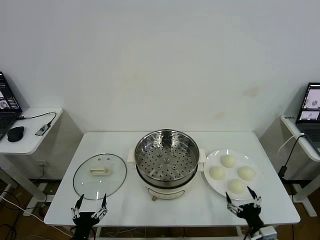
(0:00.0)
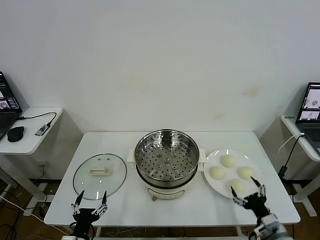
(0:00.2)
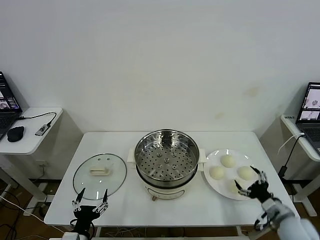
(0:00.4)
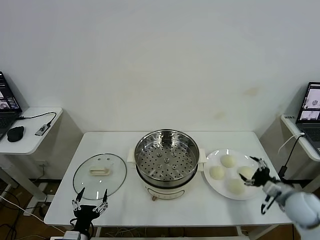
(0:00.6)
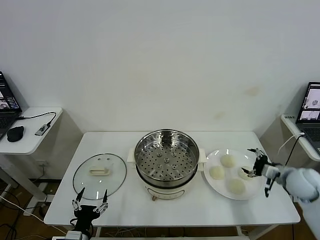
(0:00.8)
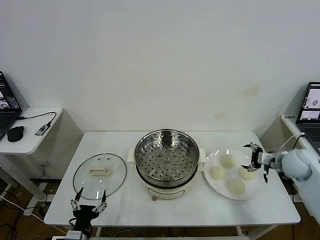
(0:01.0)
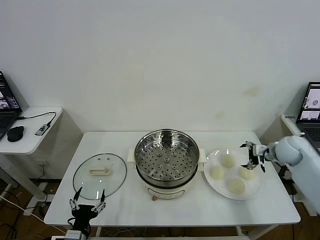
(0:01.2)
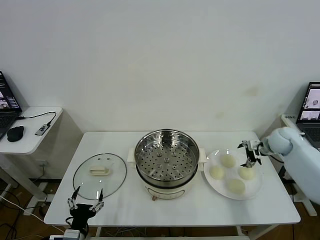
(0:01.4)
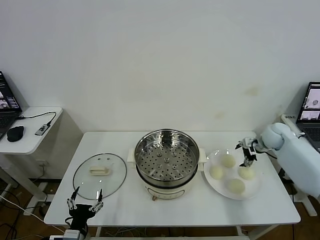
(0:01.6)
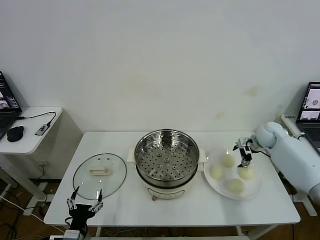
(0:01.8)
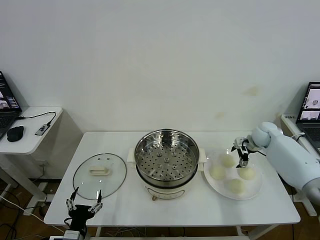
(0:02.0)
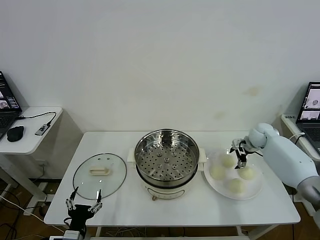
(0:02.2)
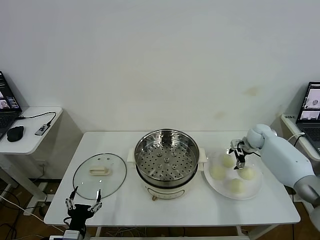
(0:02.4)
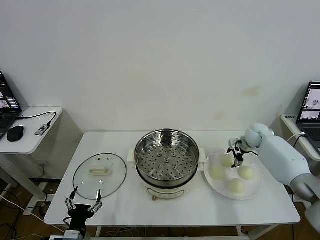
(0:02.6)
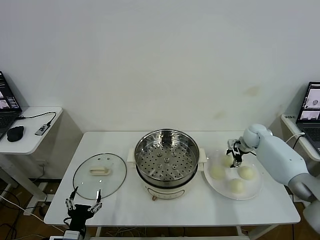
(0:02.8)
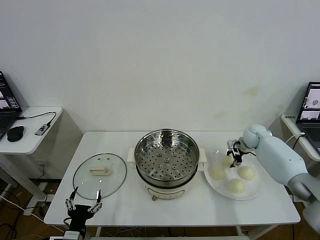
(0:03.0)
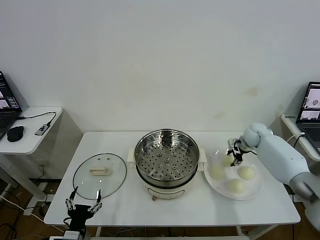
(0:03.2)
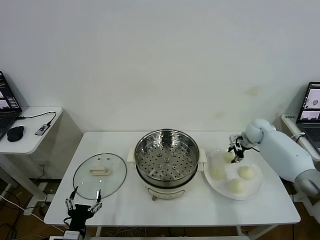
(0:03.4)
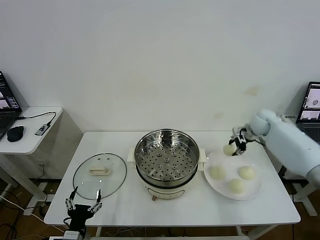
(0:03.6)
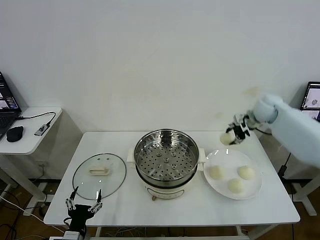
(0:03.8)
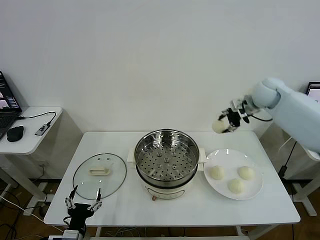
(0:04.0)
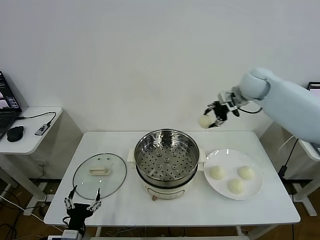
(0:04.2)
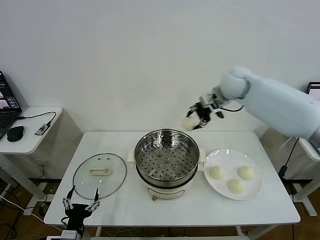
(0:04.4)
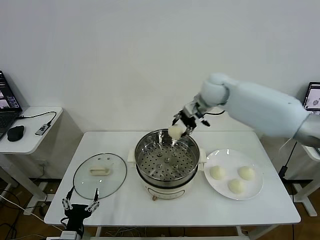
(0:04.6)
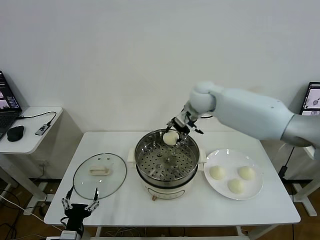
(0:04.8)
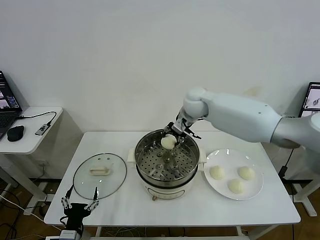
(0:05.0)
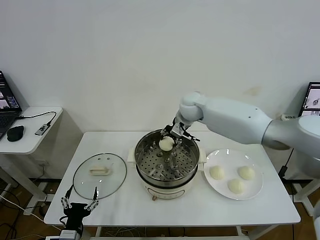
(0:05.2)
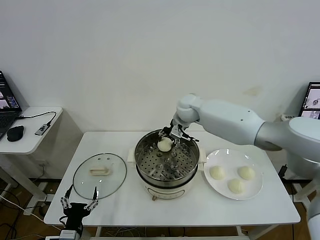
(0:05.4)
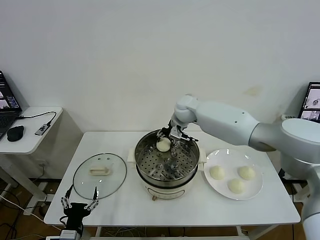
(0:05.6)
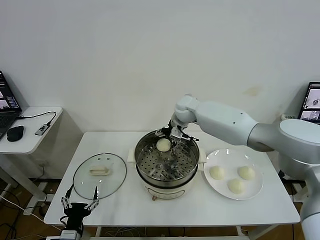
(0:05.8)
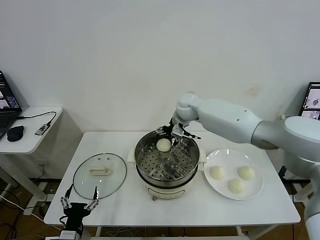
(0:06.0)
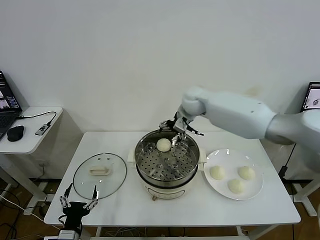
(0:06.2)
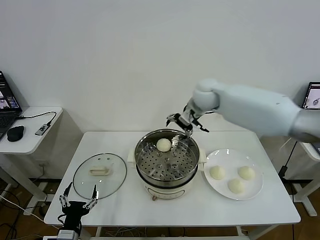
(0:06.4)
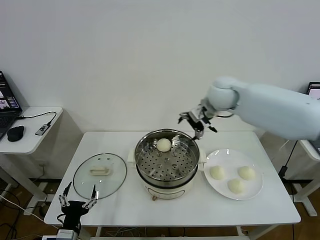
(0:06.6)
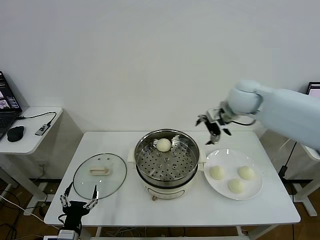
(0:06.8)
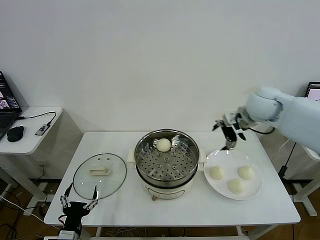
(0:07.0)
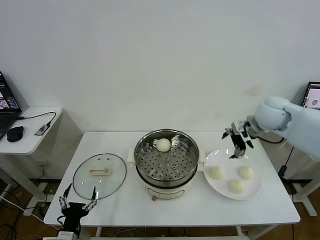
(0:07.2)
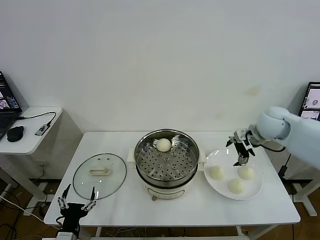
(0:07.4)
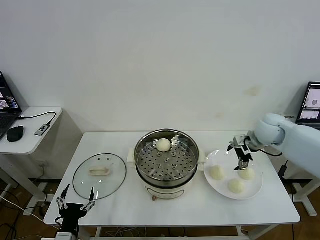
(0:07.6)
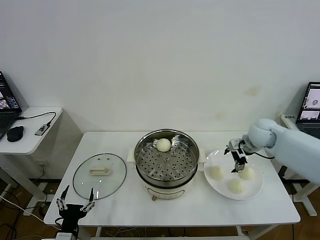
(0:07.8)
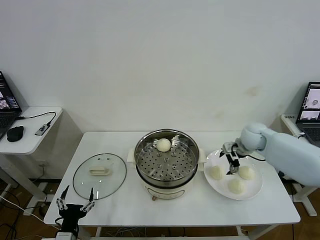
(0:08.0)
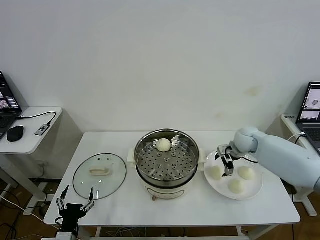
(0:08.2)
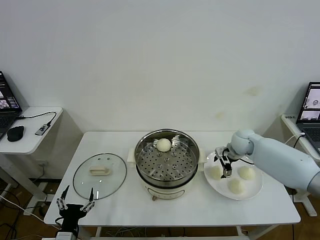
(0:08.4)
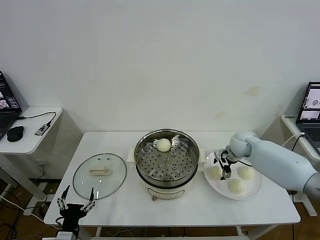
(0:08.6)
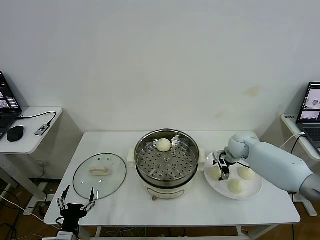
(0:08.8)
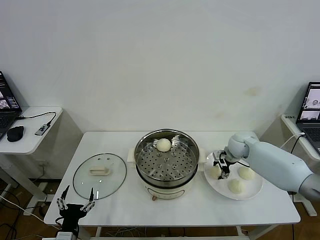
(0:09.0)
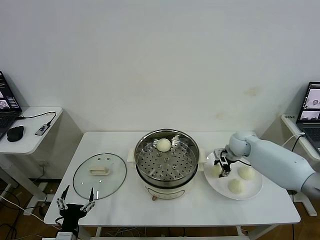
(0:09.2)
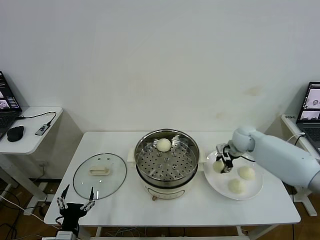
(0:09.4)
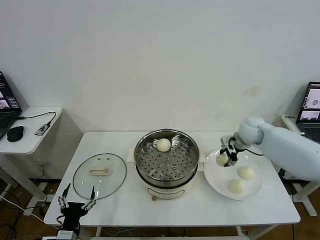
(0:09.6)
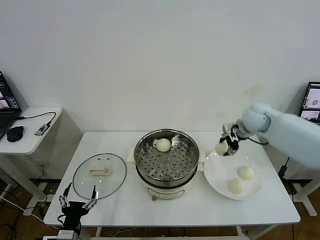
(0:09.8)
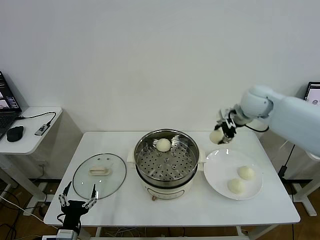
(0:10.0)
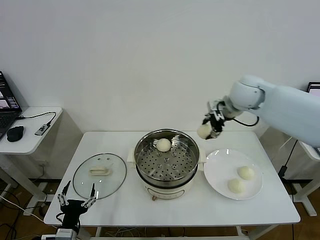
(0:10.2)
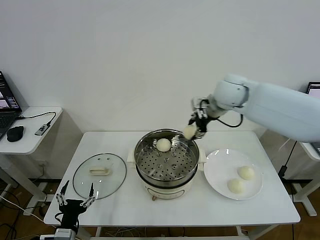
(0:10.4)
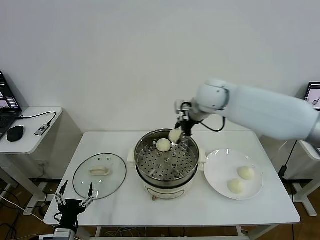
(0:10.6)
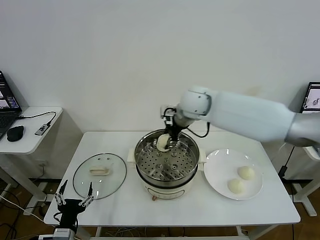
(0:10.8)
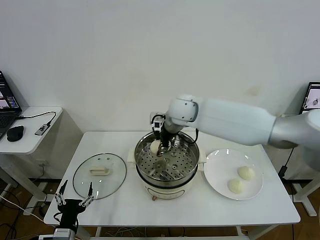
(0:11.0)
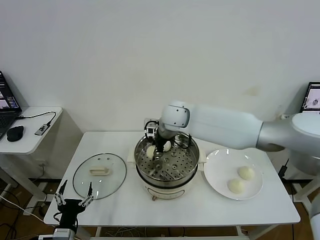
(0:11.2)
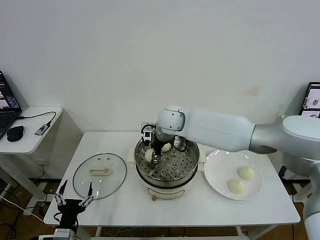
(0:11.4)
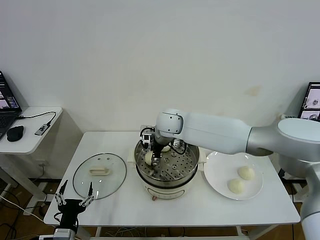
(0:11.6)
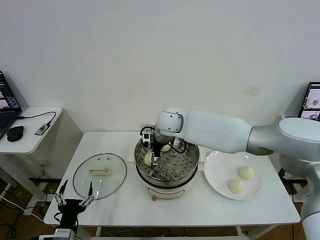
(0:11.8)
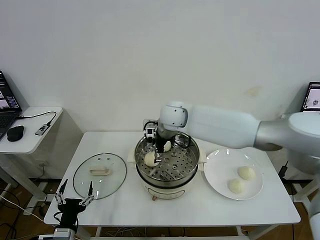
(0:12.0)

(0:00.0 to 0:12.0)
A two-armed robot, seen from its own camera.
Task of the whole recording: take steamed baozi put them in steamer then cover it.
Step, 0:00.0 - 0:03.0: Grasp the baozi in the plate with right gripper.
Step, 0:03.2 - 0:05.8: Place the baozi on the steamer with right gripper.
Step, 0:06.2 - 0:09.0: Grasp the baozi in the plate with right gripper.
Step, 0:09.2 - 0:11.8: Place the baozi on the steamer with right gripper.
0:01.6 - 0:03.0: The right gripper changes place by roughly 5 cm, and closes its fingers.
0:03.0 - 0:04.4: The right gripper travels upward and to the left by some 30 cm.
0:04.4 - 0:06.0: The right gripper goes some 10 cm to the left and downward, and opens its fingers.
0:06.0 - 0:07.6: The right gripper goes approximately 25 cm to the right.
0:07.6 - 0:09.0: The right gripper shifts some 10 cm downward, and closes up.
0:09.0 - 0:10.4: The right gripper heads upward and to the left, covering some 25 cm.
0:10.4 - 0:12.0: The right gripper moves to the left and downward, approximately 15 cm, and opens up.

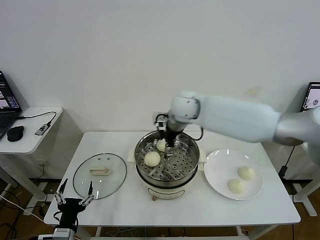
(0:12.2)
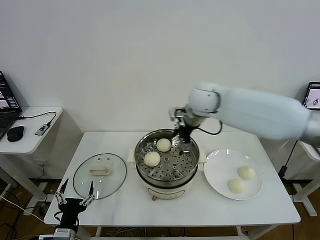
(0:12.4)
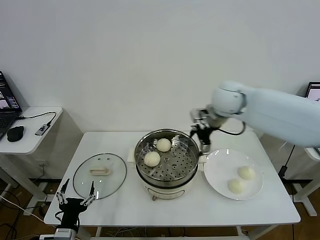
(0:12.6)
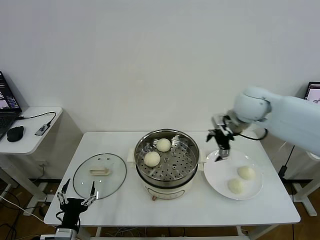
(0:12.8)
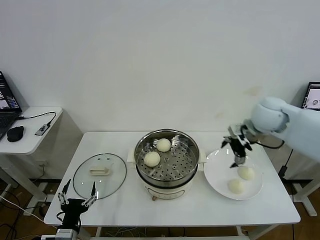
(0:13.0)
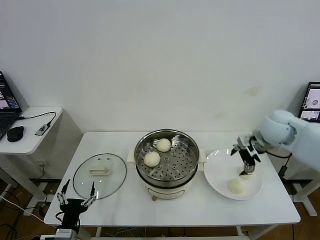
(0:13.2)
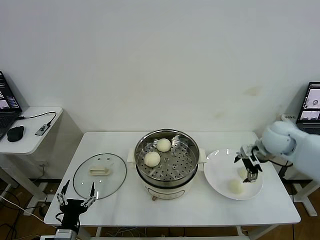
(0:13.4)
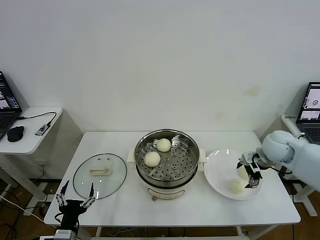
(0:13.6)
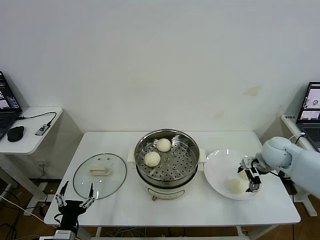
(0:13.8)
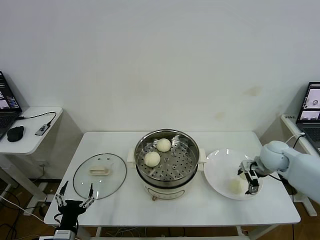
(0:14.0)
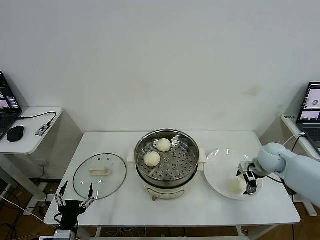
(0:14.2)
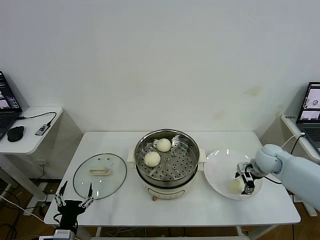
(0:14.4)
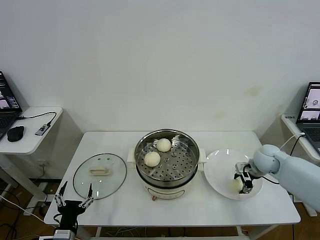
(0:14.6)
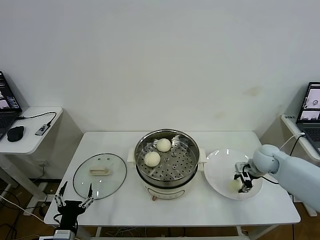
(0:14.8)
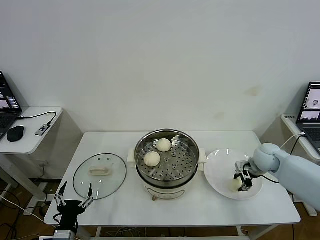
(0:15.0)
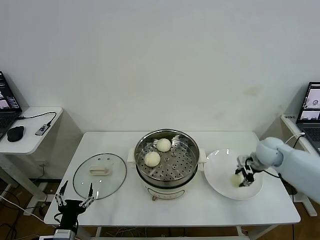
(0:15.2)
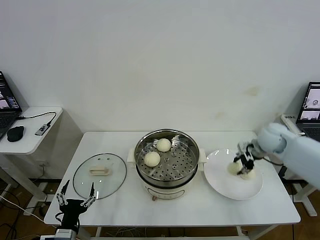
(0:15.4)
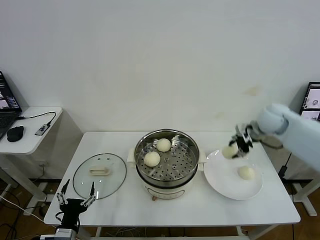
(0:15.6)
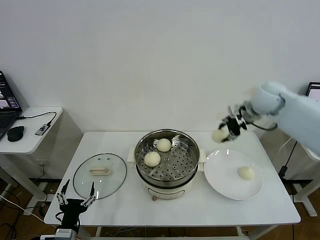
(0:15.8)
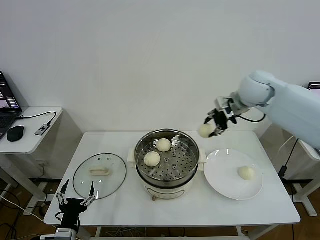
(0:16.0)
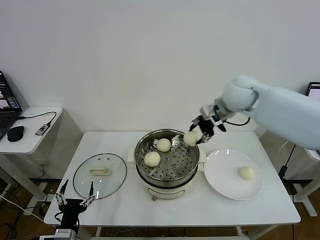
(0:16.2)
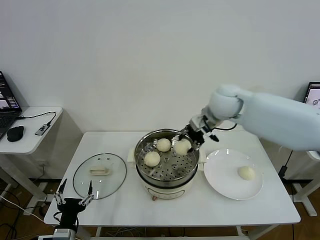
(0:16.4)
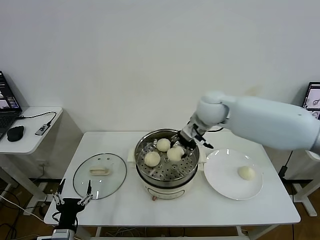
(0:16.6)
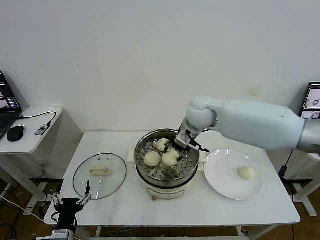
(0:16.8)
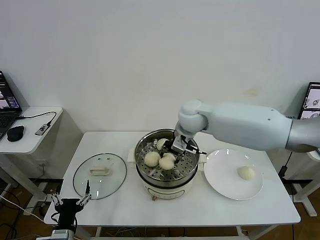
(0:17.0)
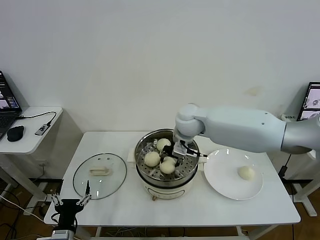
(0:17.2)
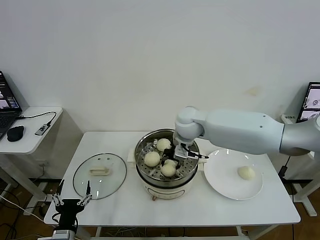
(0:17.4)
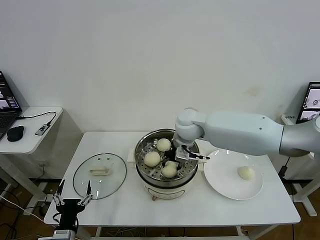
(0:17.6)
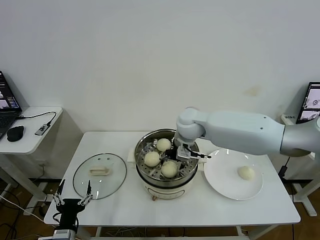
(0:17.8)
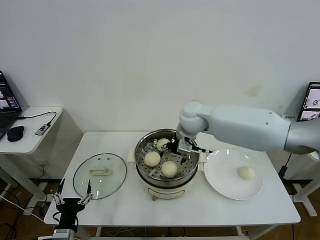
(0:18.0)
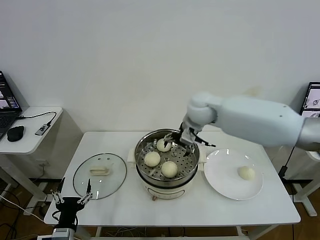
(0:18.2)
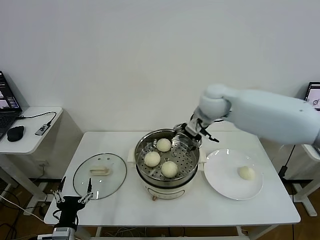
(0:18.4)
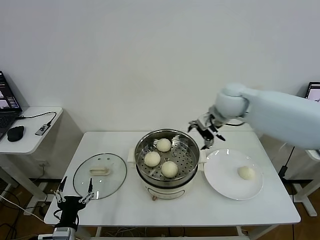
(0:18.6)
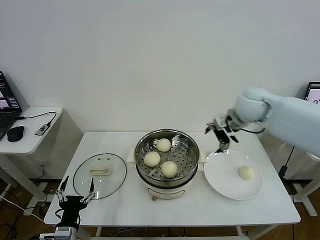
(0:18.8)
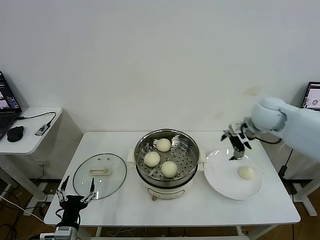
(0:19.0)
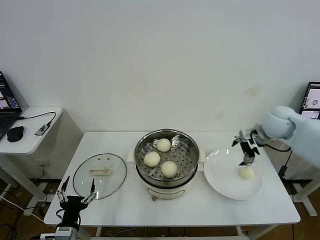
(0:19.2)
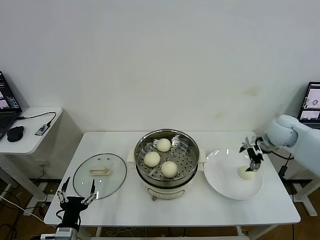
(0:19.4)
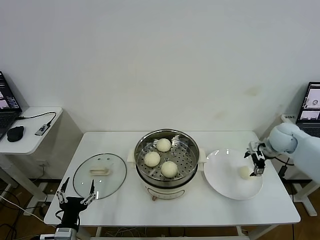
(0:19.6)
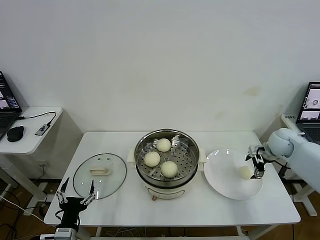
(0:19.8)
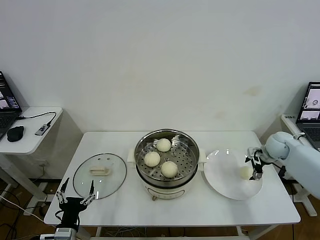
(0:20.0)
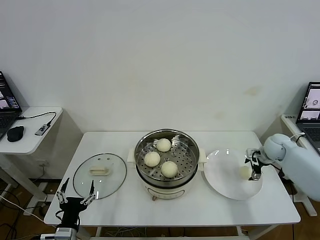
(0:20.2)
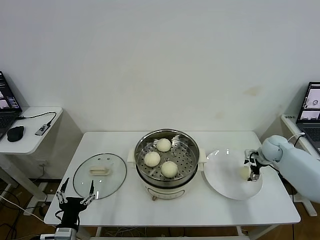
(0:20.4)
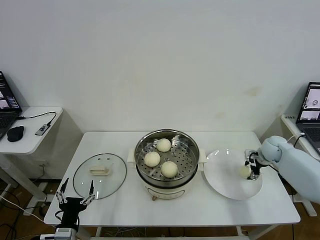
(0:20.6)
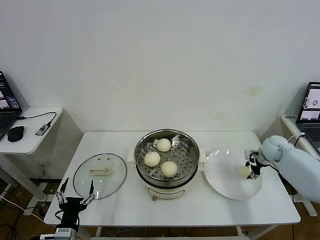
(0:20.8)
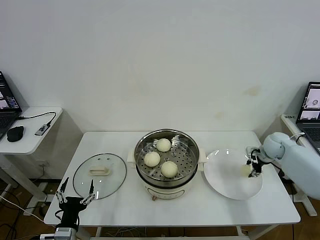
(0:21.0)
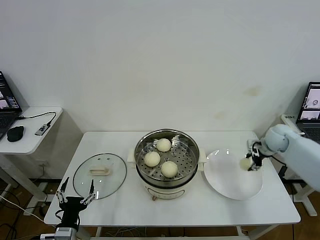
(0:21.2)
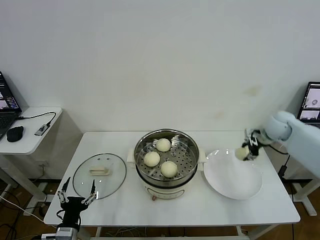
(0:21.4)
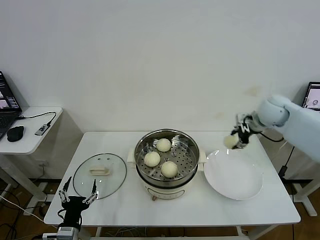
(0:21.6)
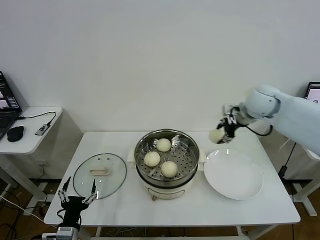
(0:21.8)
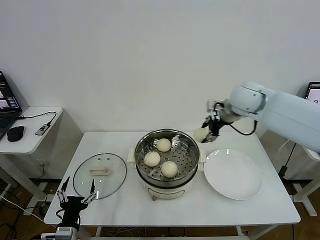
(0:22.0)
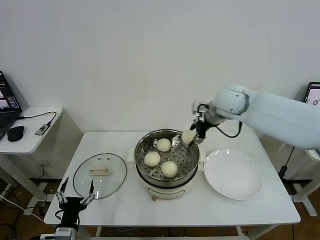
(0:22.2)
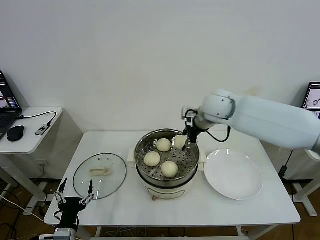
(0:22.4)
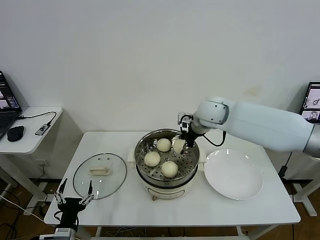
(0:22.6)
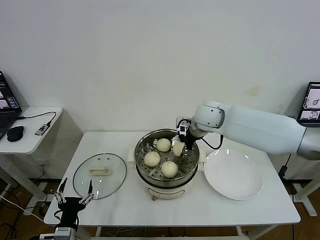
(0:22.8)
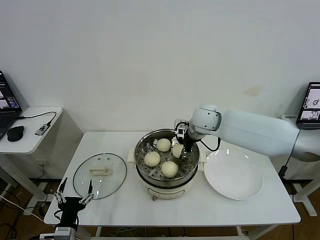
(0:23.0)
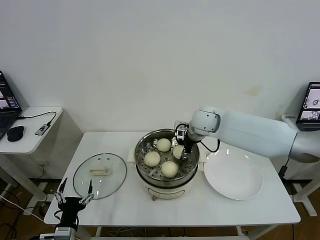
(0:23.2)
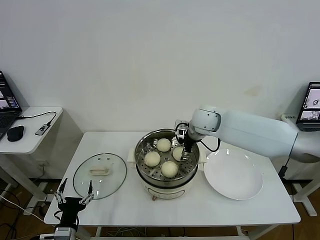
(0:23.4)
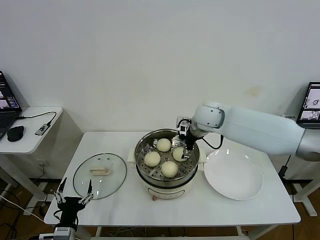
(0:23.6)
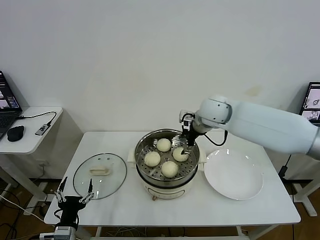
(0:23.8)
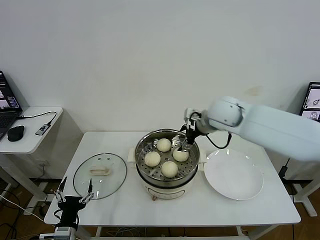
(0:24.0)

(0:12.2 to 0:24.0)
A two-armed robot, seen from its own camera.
Task of the whole recording: take steamed baozi put them in steamer then cover it.
Step, 0:12.2 - 0:14.6: Grasp the baozi in the plate with right gripper.
Step, 0:14.8 - 0:18.0: Place the baozi on the steamer with right gripper.
Step, 0:18.2 - 0:20.8: Grasp the baozi in the plate with right gripper.
Step, 0:21.0 - 0:23.6: Place the baozi on the steamer with right gripper.
0:12.2 - 0:13.6: The right gripper shifts about 30 cm to the right and downward.
0:13.6 - 0:15.2: The right gripper closes.
0:15.2 - 0:16.6: The right gripper travels to the left and upward by about 30 cm.
0:16.6 - 0:18.2: The right gripper opens its fingers.
0:18.2 - 0:19.6: The right gripper shifts approximately 30 cm to the right.
0:19.6 - 0:21.0: The right gripper heads downward, covering roughly 5 cm, and closes its fingers.
0:21.0 - 0:22.6: The right gripper moves to the left and upward, about 35 cm.
0:22.6 - 0:24.0: The right gripper opens up.
